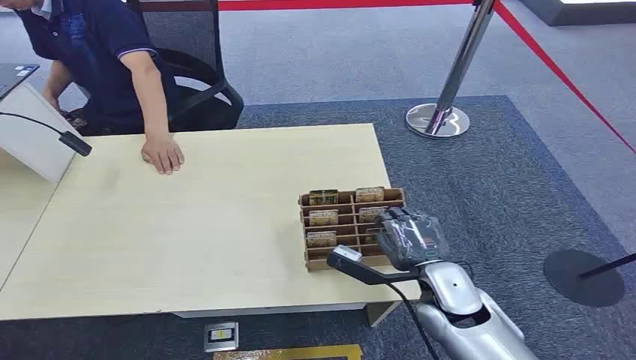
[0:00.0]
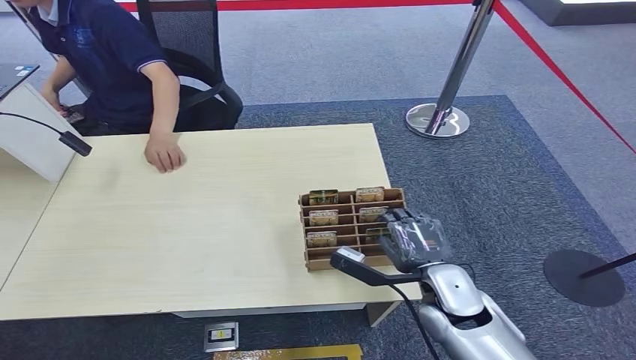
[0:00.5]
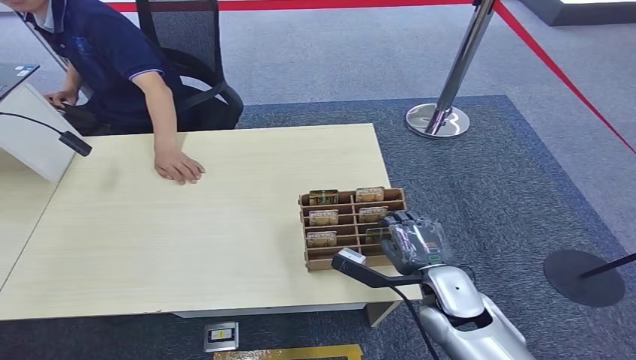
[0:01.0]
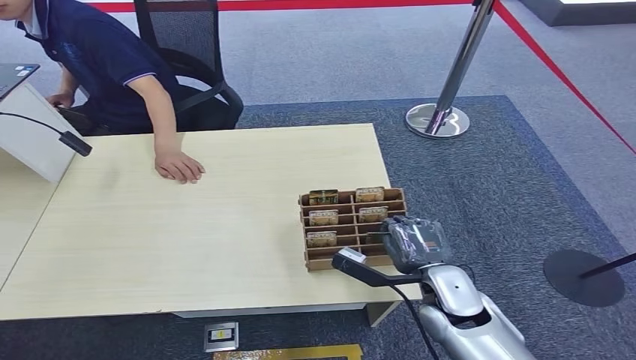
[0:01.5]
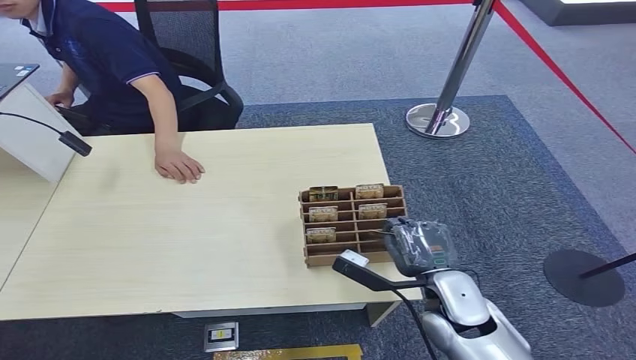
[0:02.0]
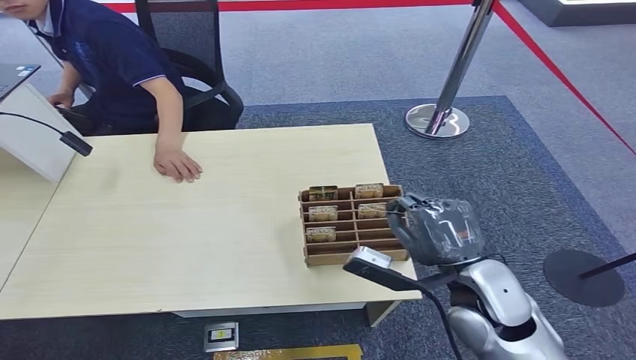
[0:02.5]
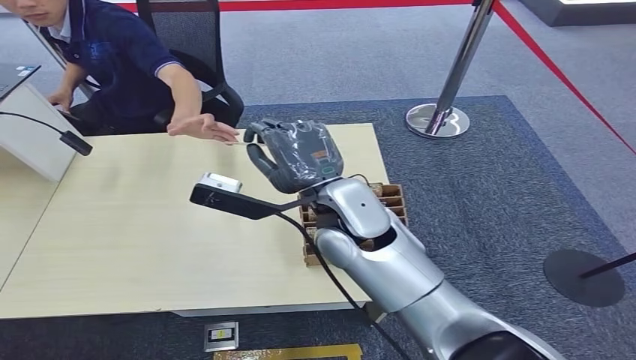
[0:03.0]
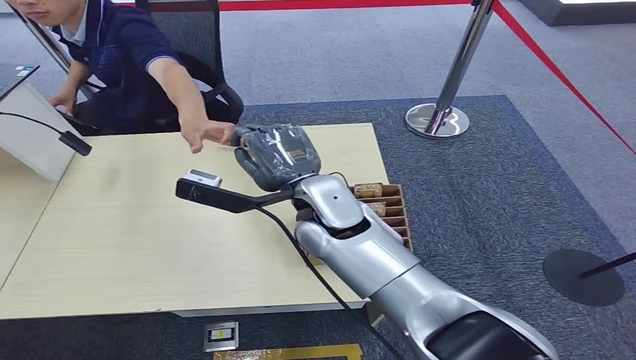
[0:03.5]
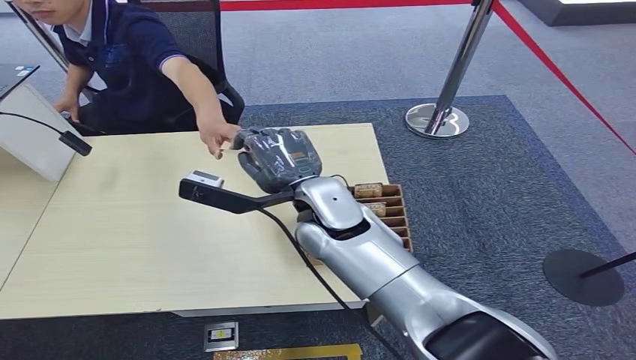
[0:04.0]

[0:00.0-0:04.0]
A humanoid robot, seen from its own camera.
Step, 0:00.0 to 0:03.0: Pick up the key card from the card box.
Step, 0:03.5 to 0:04.0: Hand the key card to the target.
0:02.0 to 0:04.0: The right hand heads to the left, upward and forward, covering roughly 25 cm.
